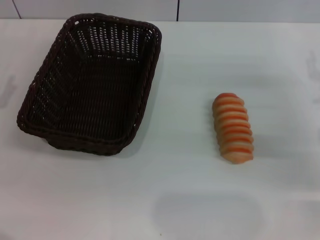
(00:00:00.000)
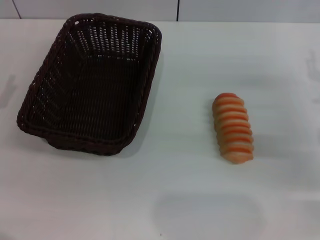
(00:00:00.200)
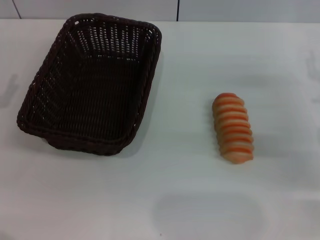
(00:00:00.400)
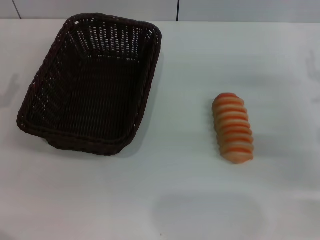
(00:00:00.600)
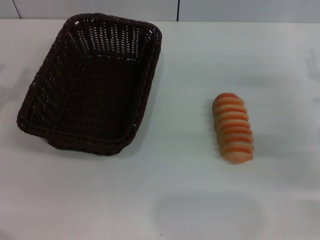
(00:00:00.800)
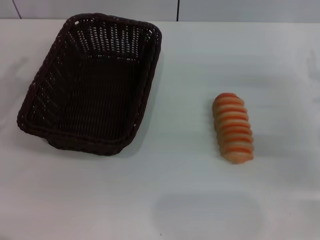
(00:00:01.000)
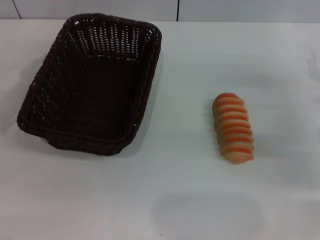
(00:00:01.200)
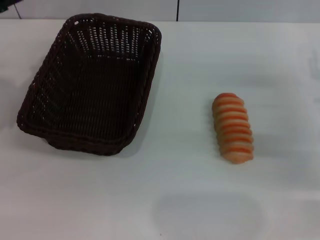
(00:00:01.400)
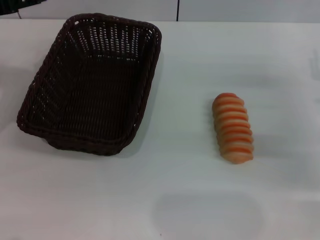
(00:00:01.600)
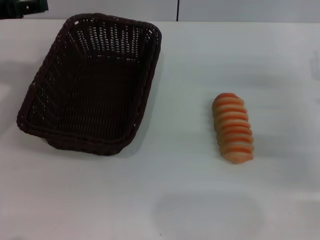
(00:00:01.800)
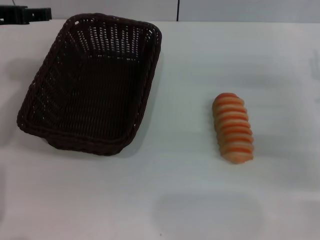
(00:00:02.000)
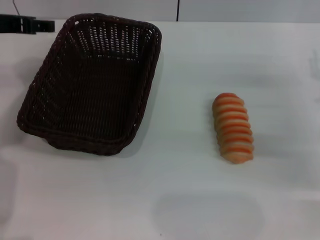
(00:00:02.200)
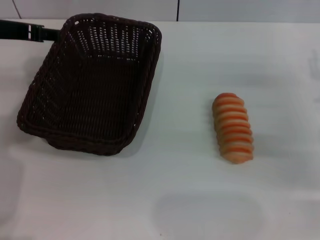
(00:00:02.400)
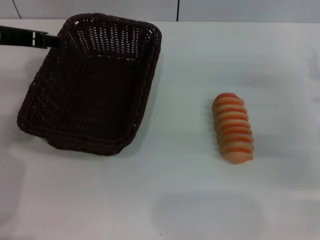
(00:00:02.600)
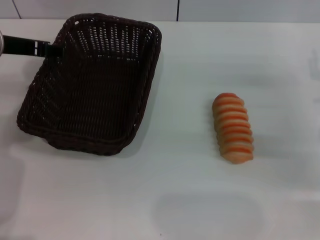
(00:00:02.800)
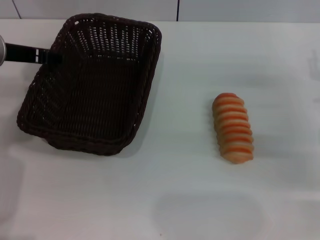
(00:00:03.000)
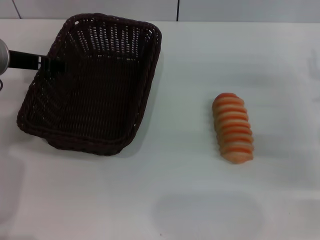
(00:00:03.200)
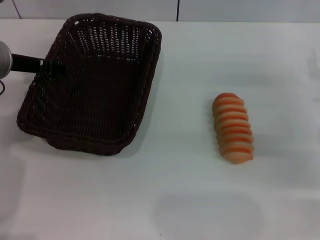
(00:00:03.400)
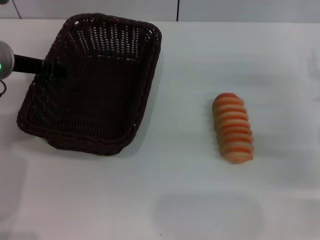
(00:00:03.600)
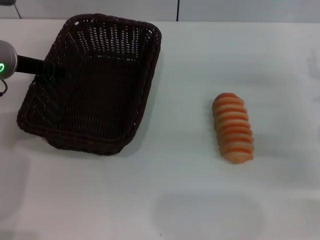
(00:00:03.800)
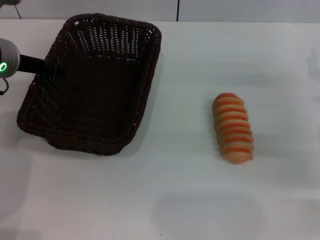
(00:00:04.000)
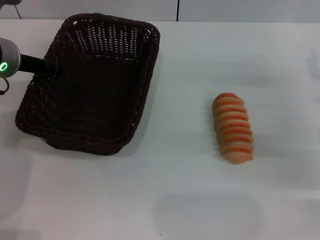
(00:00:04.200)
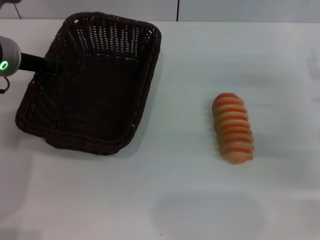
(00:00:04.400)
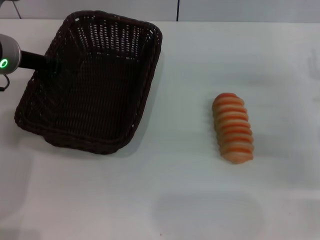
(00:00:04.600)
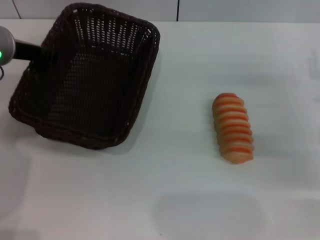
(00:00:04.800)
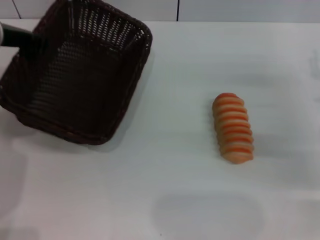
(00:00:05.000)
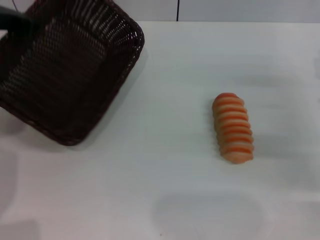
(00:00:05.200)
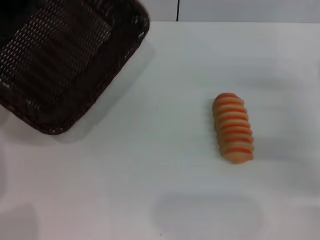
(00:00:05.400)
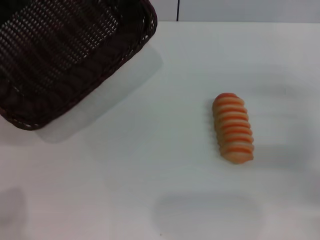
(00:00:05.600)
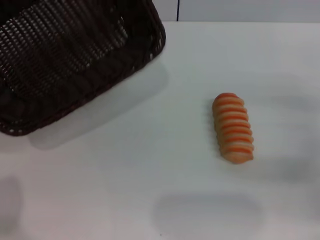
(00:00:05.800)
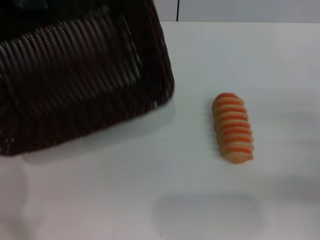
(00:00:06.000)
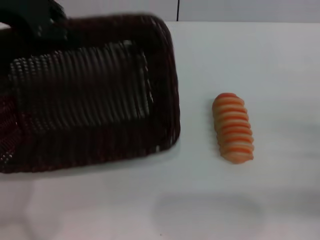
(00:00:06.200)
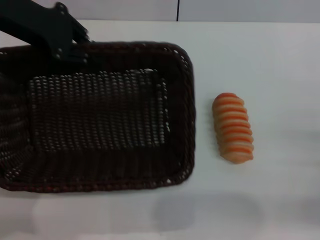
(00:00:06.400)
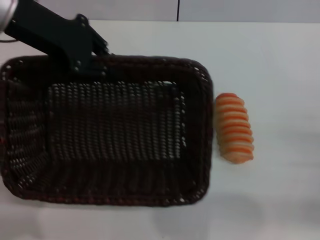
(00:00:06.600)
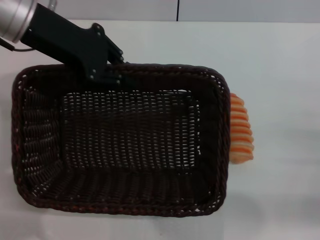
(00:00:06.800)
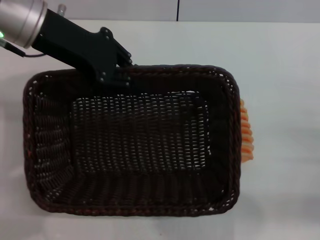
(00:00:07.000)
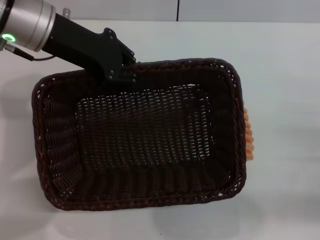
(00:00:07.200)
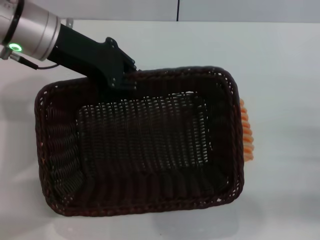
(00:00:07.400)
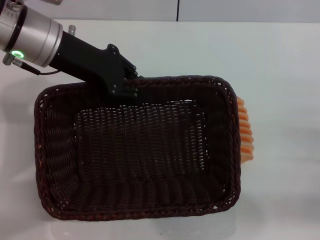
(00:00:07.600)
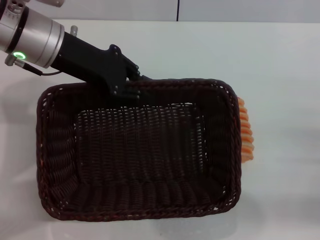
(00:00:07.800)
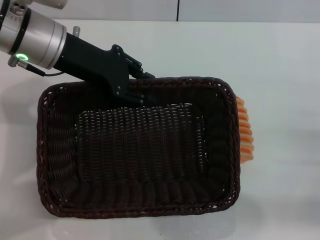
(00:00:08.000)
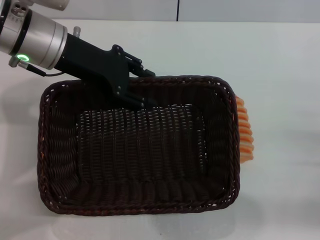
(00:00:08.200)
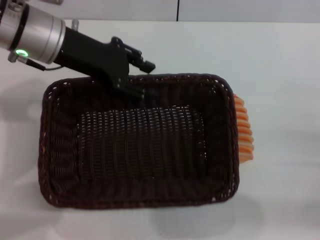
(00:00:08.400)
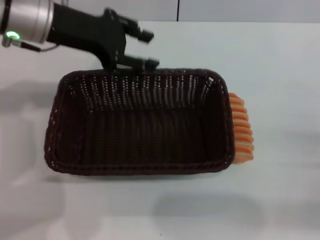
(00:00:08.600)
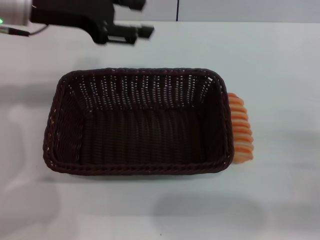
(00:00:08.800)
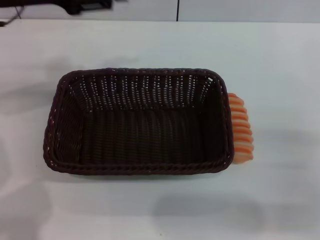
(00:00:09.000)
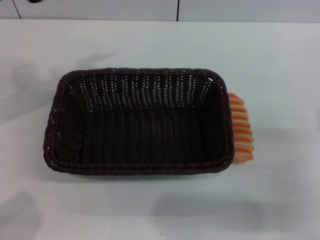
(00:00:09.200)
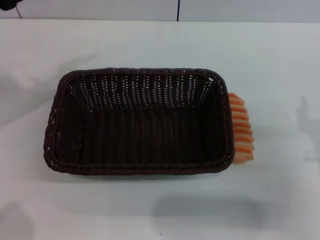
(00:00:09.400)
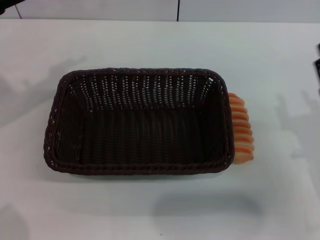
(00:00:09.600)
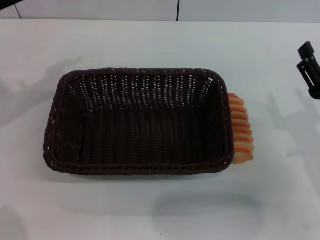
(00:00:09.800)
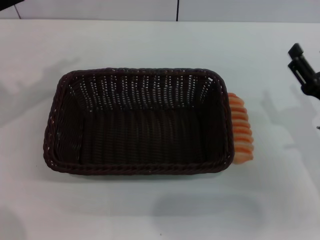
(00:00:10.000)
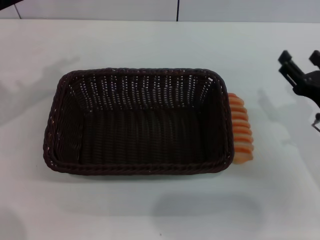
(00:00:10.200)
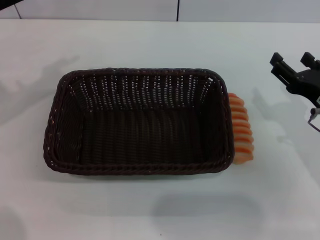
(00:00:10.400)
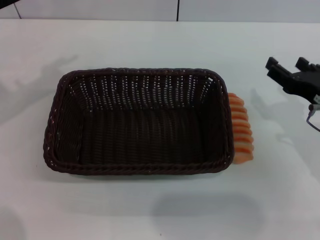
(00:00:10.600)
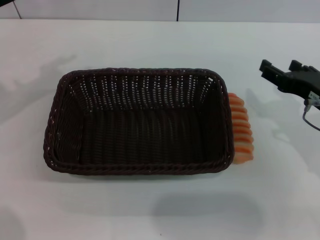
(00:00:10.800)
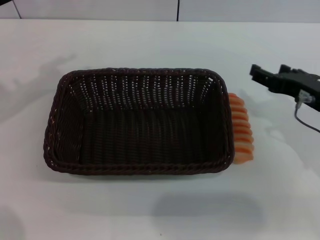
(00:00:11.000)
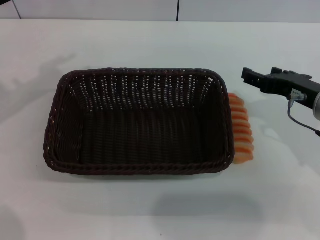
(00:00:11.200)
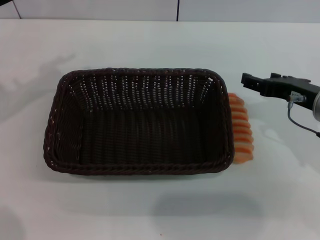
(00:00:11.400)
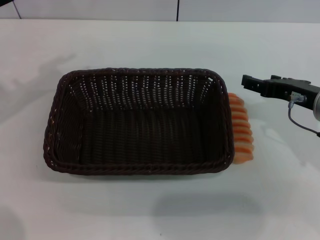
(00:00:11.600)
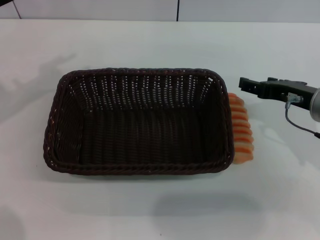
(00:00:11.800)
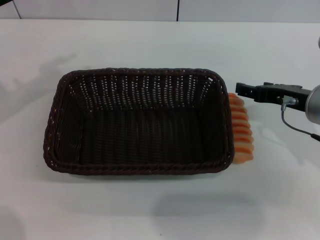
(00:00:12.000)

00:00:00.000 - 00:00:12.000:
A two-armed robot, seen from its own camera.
Step, 00:00:00.000 - 00:00:05.000: Pick up the dark basket with the left gripper.
Step, 00:00:05.200 - 00:00:08.400: Place the dark basket in the center of view with the left gripper.
00:00:00.000 - 00:00:01.600: The left gripper heads upward, forward and to the right, covering about 15 cm.
00:00:01.600 - 00:00:03.000: The left gripper goes some 5 cm to the right.
00:00:03.000 - 00:00:04.400: The left gripper closes its fingers.
00:00:04.400 - 00:00:06.000: The left gripper heads upward, covering approximately 15 cm, while the right gripper goes approximately 10 cm backward.
00:00:06.000 - 00:00:07.600: The left gripper moves to the right and downward, some 15 cm.
00:00:07.600 - 00:00:09.000: The left gripper moves to the left, roughly 5 cm, and opens its fingers.
00:00:09.000 - 00:00:10.400: The left gripper travels to the left by about 10 cm, while the right gripper travels forward and to the left by some 10 cm, and opens up.
00:00:10.400 - 00:00:12.000: The right gripper goes approximately 5 cm forward.

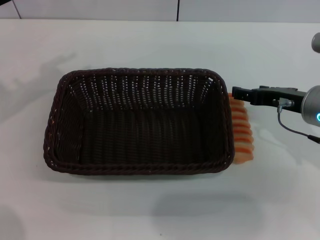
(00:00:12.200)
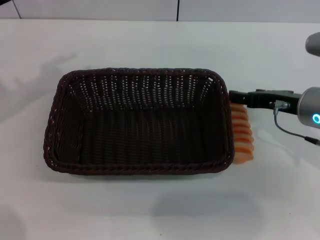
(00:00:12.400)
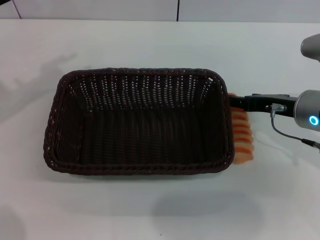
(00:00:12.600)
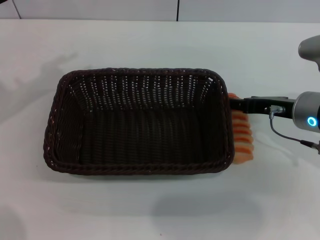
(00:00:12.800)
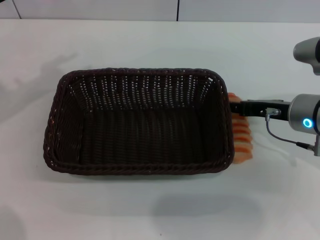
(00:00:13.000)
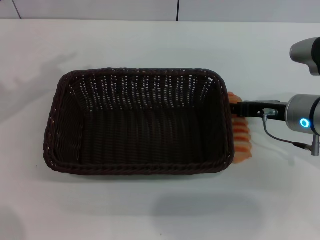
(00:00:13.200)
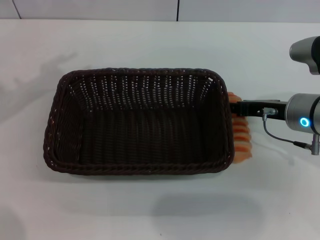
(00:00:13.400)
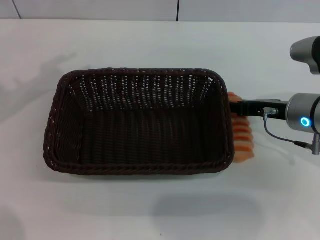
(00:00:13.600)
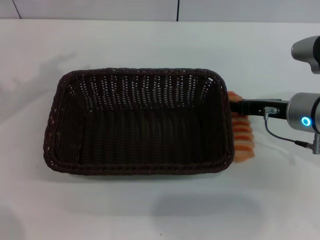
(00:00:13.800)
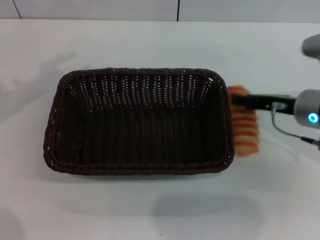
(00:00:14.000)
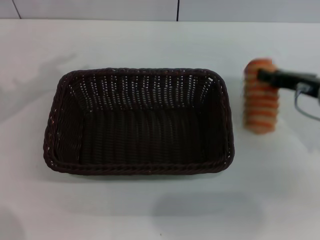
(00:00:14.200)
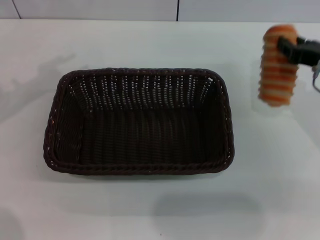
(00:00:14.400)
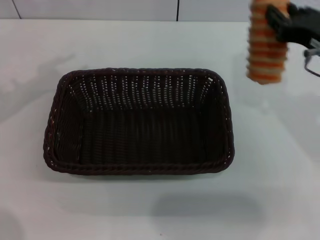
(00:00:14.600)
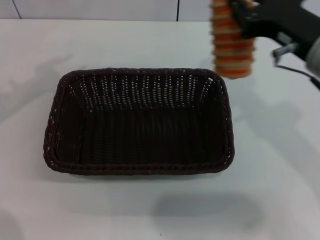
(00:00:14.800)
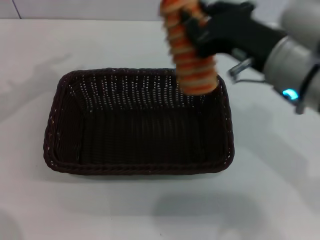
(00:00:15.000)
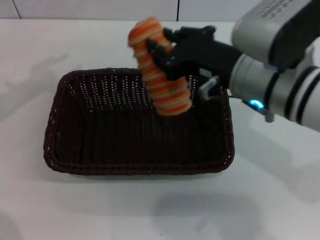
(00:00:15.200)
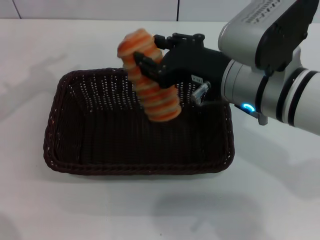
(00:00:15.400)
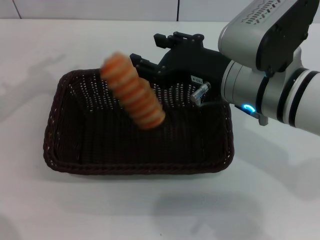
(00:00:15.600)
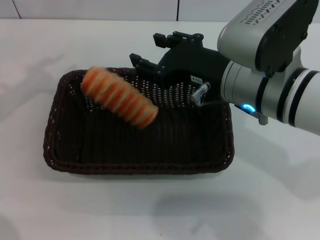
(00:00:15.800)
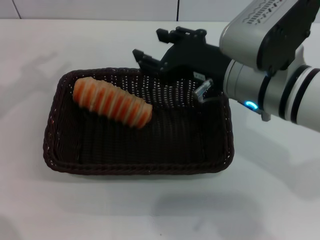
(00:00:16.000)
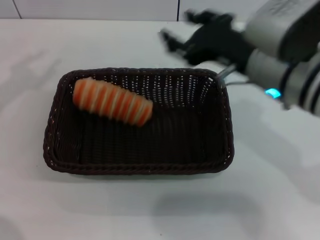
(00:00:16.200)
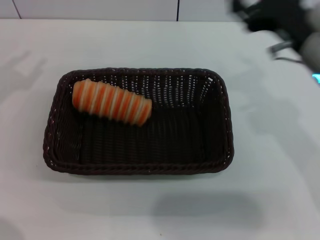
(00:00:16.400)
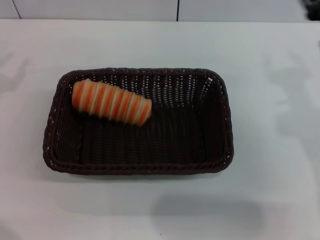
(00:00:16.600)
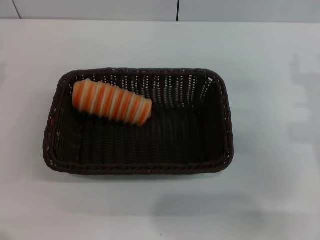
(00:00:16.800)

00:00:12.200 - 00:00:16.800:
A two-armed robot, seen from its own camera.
Step, 00:00:12.200 - 00:00:14.200: Pick up the long bread with the right gripper.
Step, 00:00:14.400 - 00:00:15.800: Place the long bread into the dark basket with the right gripper.
00:00:12.200 - 00:00:13.800: The right gripper closes its fingers.
00:00:13.800 - 00:00:15.200: The right gripper shifts about 15 cm to the left and upward, and closes its fingers.
00:00:15.200 - 00:00:16.800: The left gripper goes about 5 cm downward; the right gripper moves to the right and downward, some 15 cm, and opens up.
